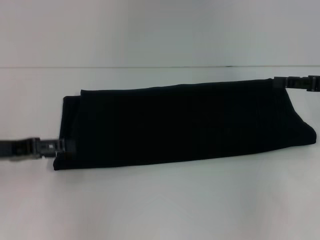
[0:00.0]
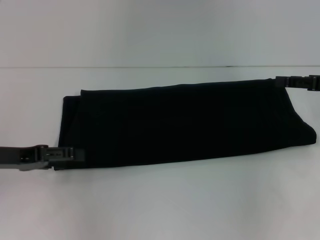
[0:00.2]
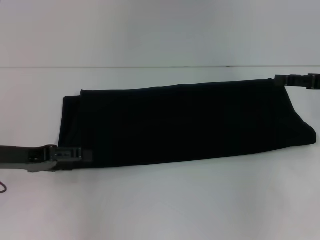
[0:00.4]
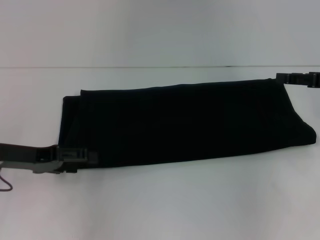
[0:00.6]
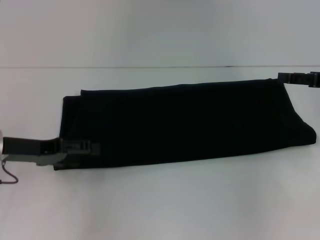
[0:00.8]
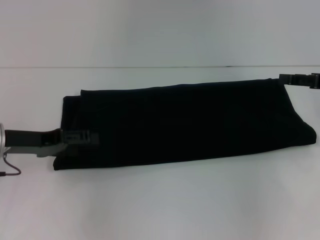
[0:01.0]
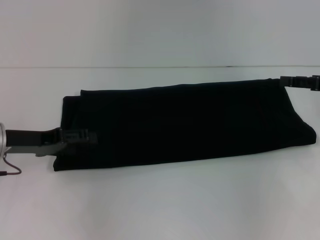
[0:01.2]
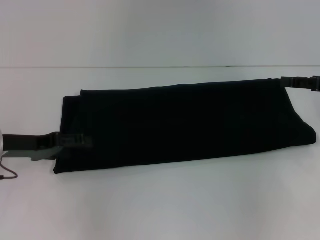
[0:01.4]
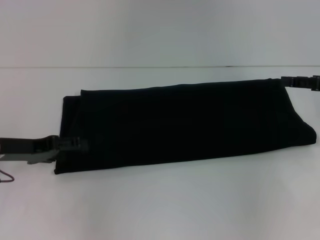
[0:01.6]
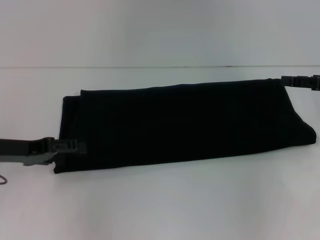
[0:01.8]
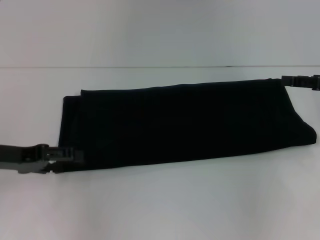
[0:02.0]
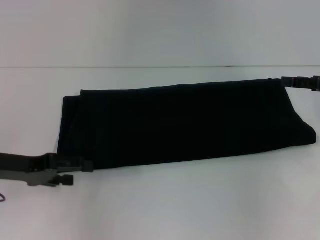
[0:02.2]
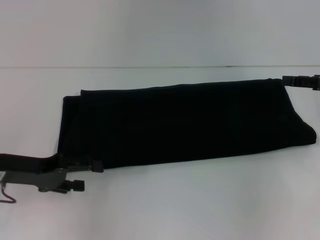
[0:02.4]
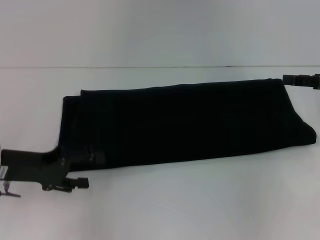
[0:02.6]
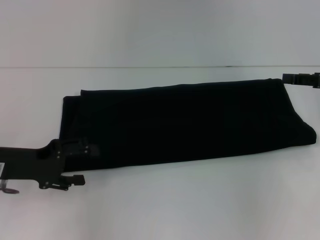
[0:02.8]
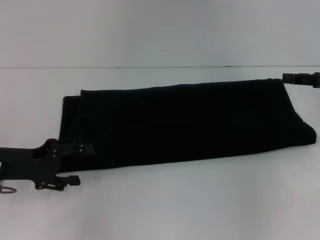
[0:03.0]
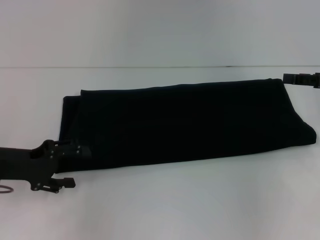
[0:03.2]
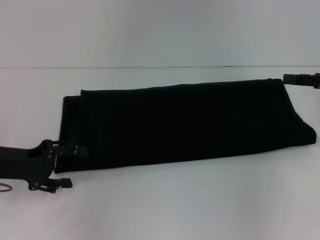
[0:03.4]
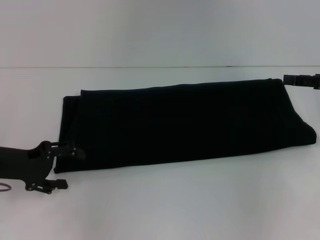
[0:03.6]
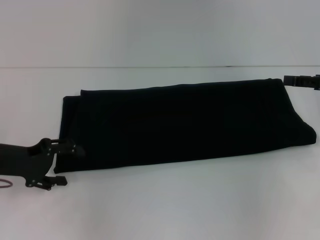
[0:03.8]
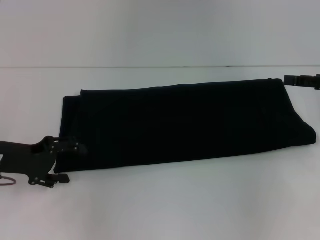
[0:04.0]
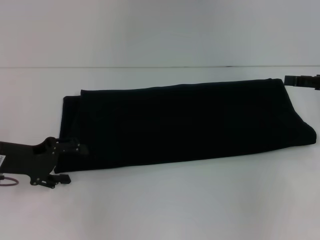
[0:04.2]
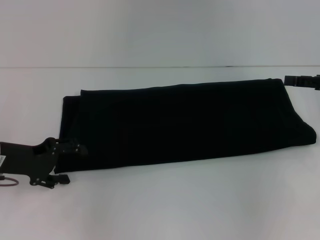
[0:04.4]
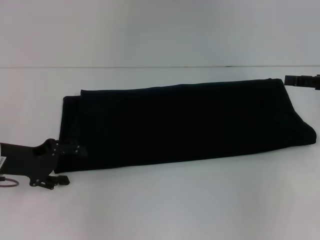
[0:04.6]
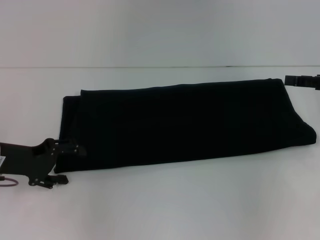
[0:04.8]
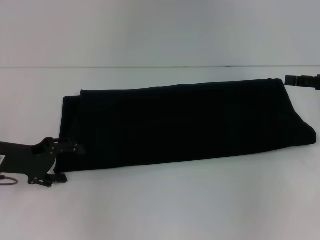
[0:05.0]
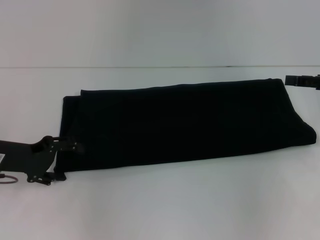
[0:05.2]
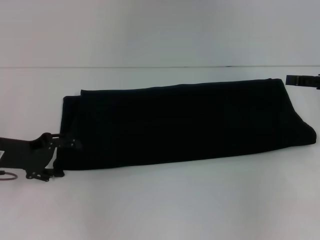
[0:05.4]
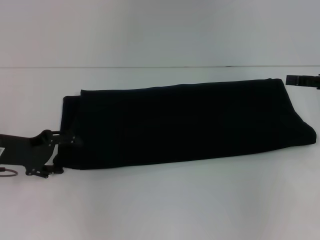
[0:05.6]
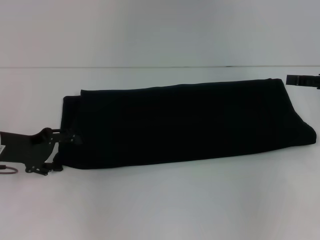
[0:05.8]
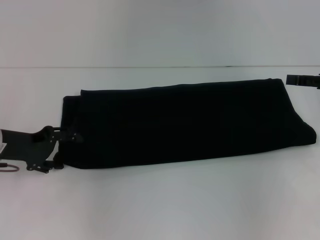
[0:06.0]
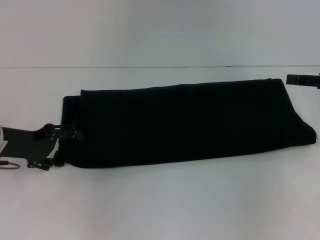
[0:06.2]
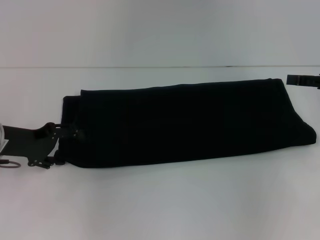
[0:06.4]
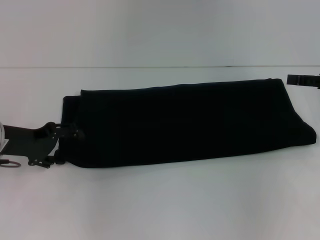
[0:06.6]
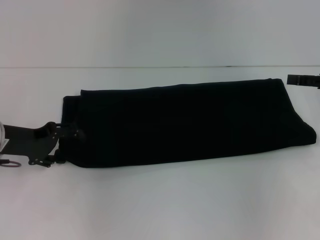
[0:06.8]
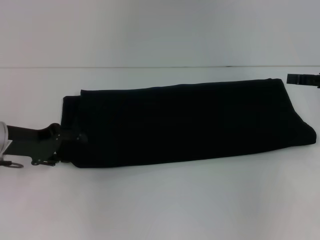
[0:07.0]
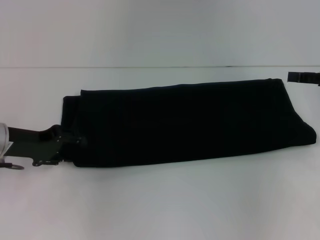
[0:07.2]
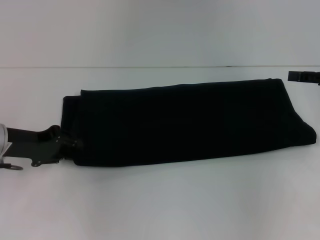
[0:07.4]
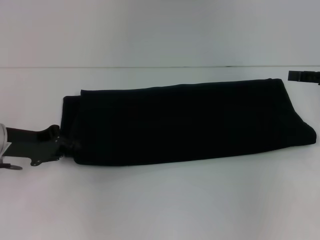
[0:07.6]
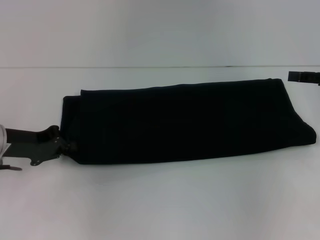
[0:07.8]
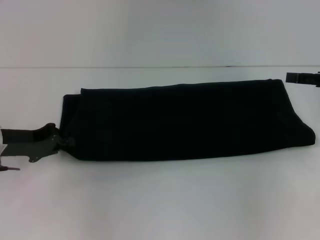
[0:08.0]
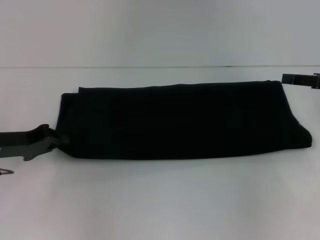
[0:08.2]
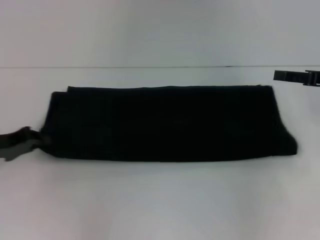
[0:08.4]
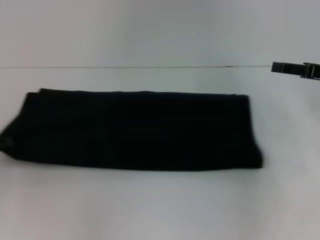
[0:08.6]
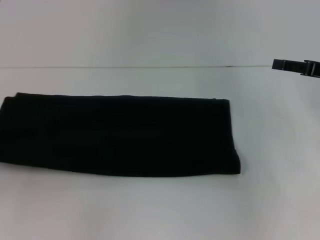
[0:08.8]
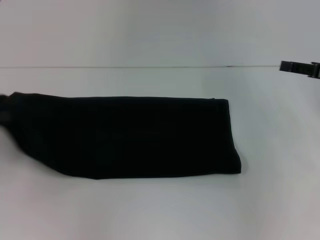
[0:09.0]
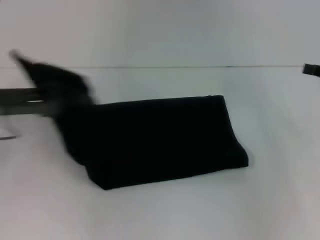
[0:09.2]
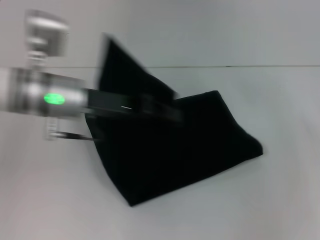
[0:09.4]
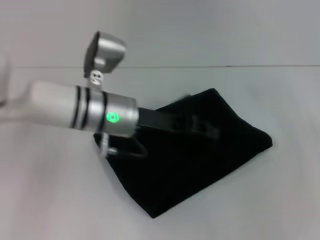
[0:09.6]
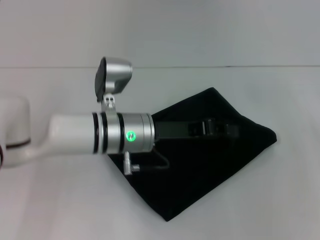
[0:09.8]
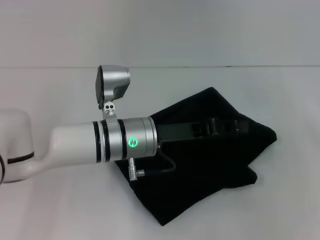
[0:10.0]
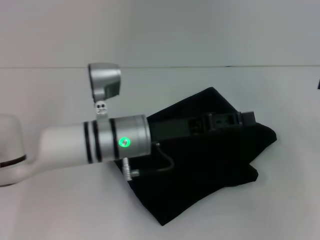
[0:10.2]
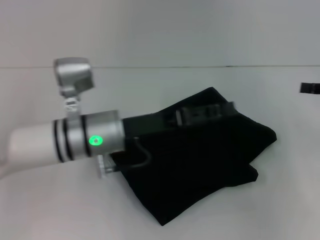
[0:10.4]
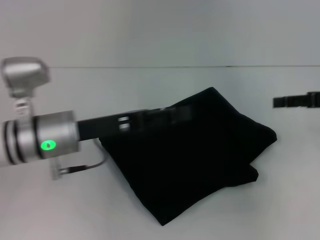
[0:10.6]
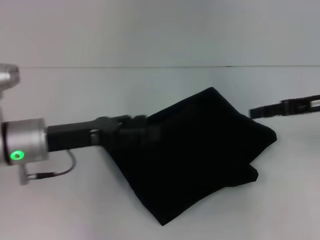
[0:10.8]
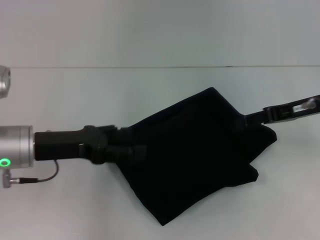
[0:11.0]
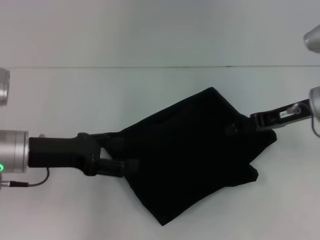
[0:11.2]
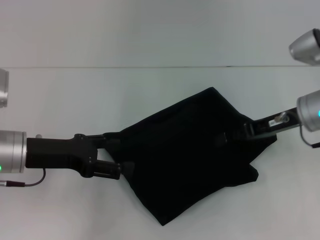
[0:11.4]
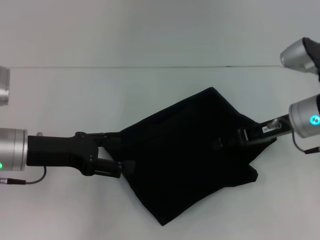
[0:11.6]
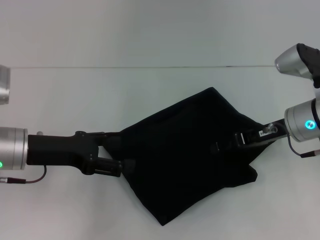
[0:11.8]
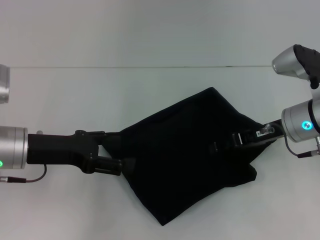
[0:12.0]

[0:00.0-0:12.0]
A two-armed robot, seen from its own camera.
Step, 0:00.0 to 0:09.8: Fold the clothes with your left hand.
0:00.0 to 0:01.6: The grippers move only a little.
0:03.0 to 0:06.0: The grippers stay close to where they were, moving slightly.
0:06.0 to 0:07.6: The left gripper closes its fingers.
0:07.6 to 0:09.0: The left gripper shifts approximately 10 cm to the left and backward, and closes up.
0:09.0 to 0:10.4: The left gripper goes roughly 25 cm to the right, and opens its fingers.
0:10.4 to 0:12.0: Both grippers travel together to the left, about 15 cm. The left gripper opens up.

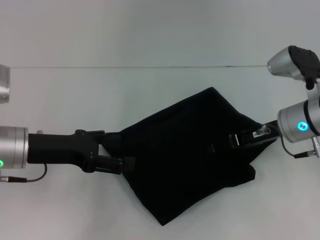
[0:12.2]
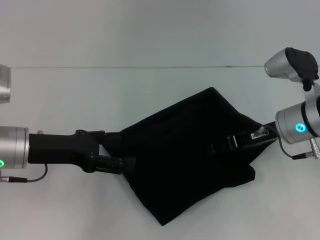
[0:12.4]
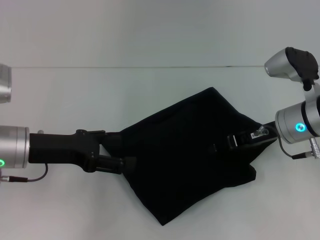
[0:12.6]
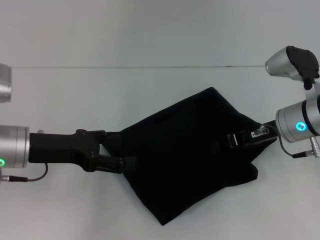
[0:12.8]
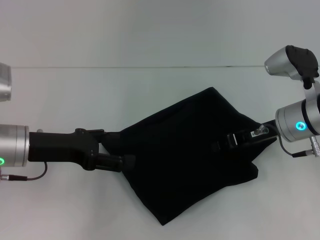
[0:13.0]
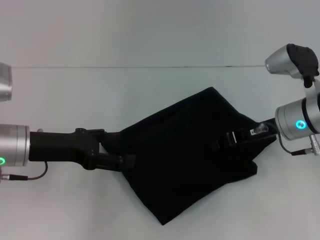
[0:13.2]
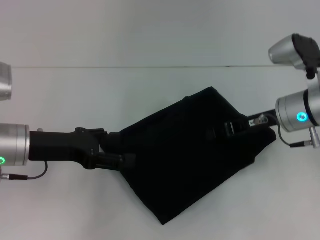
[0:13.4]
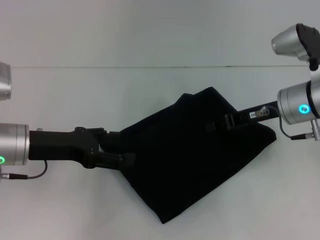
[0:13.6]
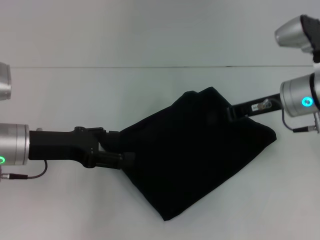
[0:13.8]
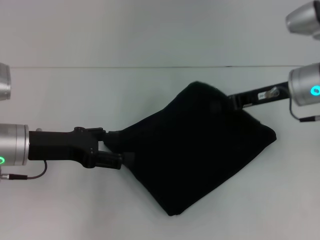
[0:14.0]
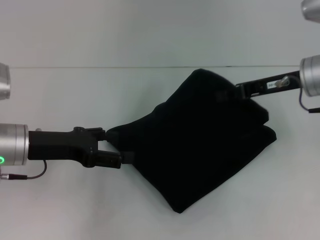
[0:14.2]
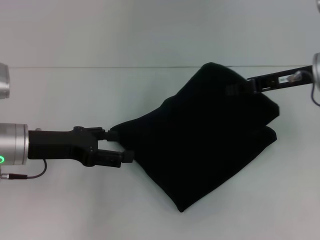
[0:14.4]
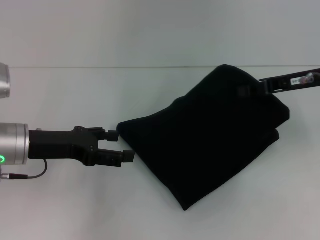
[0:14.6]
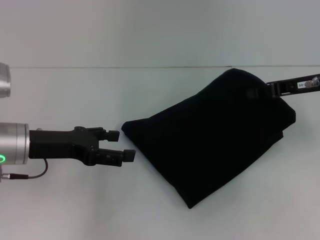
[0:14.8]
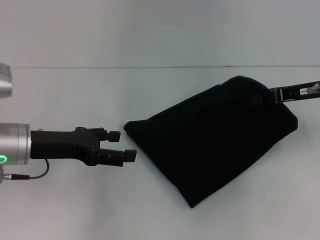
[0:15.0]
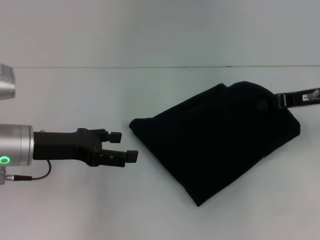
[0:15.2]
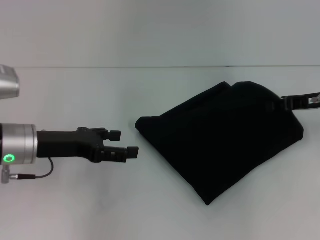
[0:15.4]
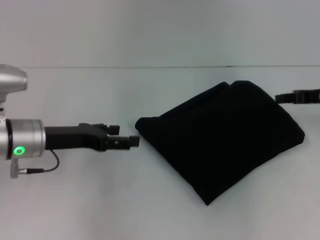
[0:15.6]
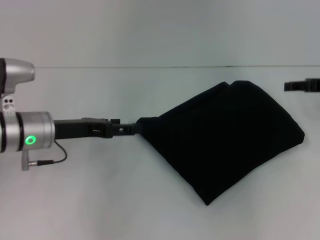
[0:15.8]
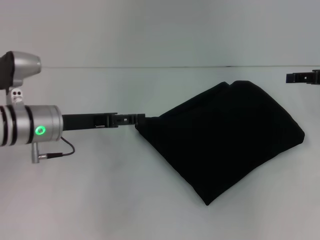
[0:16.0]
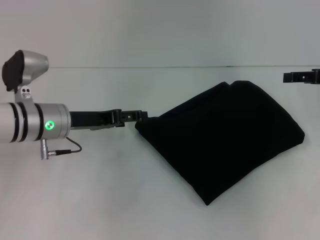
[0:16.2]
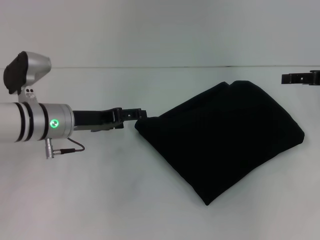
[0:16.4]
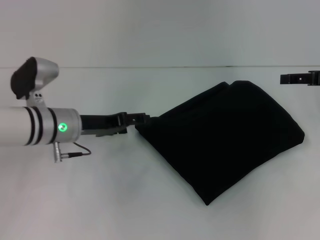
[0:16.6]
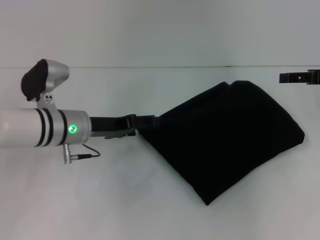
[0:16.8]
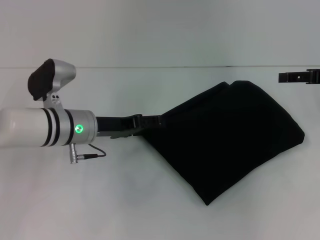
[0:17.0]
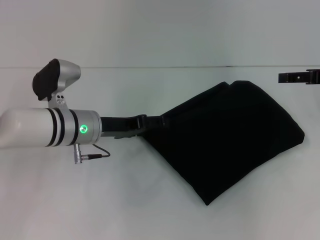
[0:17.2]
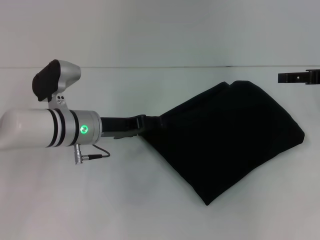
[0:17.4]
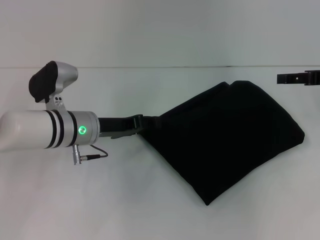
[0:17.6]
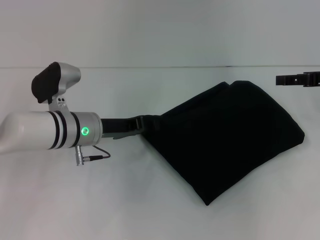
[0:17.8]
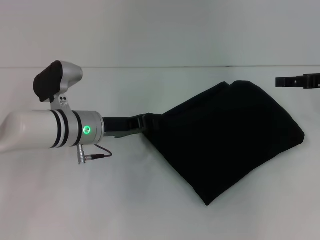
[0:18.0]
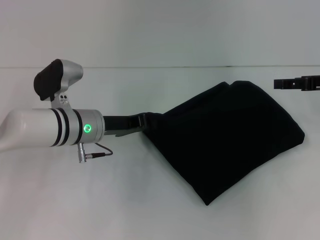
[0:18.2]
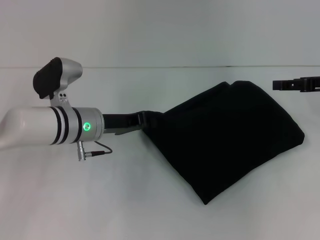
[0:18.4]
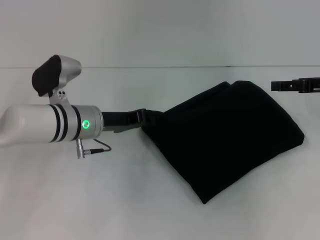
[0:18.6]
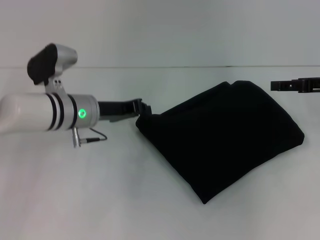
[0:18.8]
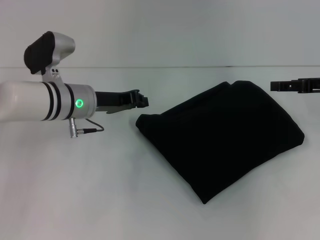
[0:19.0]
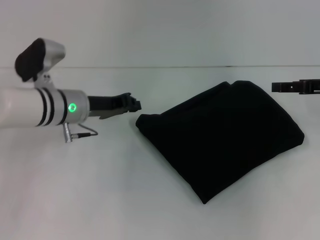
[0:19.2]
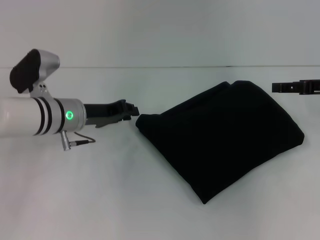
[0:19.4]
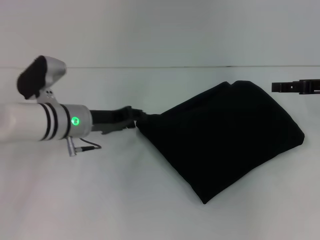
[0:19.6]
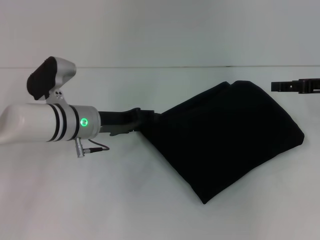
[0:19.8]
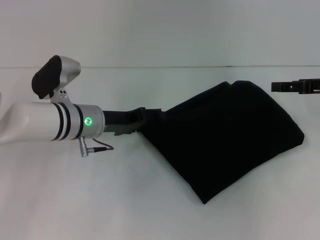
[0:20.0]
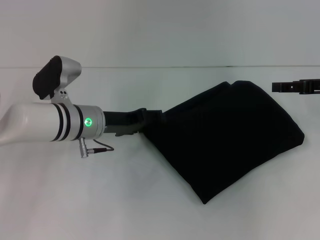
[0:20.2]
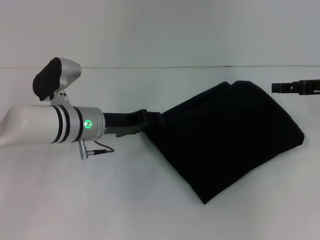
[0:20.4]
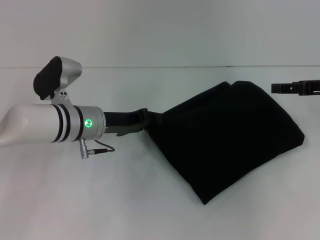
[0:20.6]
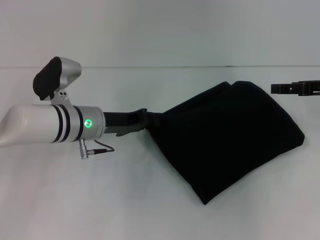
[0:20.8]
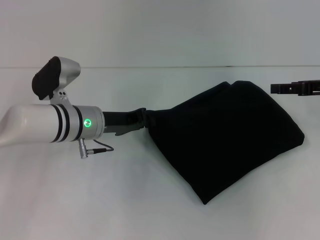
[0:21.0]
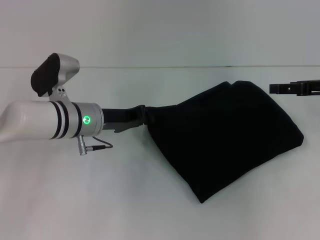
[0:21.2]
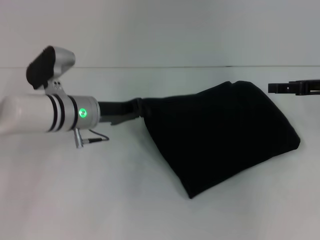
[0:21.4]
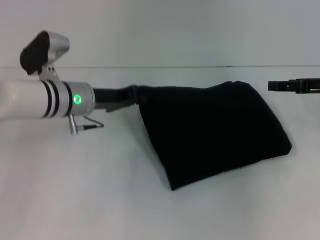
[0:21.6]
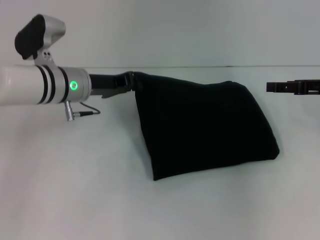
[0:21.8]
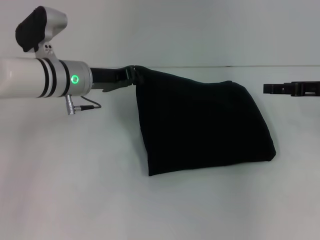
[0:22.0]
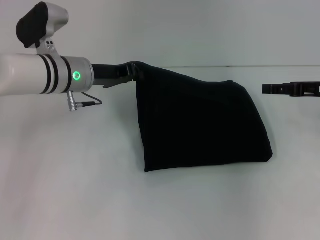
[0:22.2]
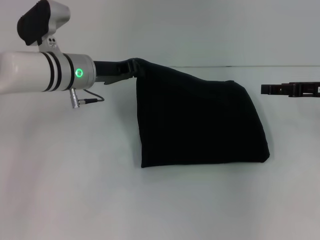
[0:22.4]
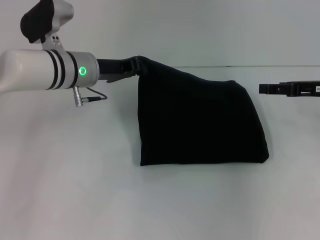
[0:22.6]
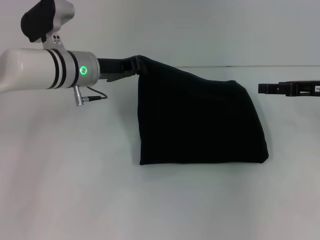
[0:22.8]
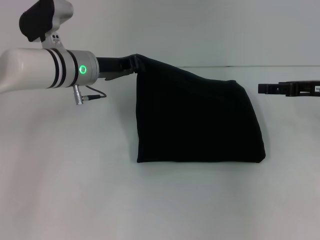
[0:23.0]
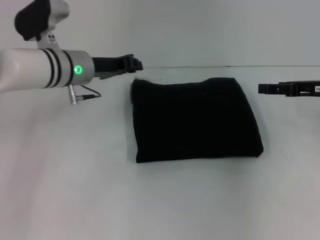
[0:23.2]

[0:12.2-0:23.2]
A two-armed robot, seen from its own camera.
0:12.2 to 0:13.8: The right gripper closes up.
0:13.8 to 0:15.4: The right gripper moves to the right, roughly 10 cm.
0:15.4 to 0:17.0: The right gripper opens. Meanwhile the left gripper shifts some 10 cm to the right and forward.
0:17.0 to 0:18.4: The left gripper closes.
0:18.4 to 0:20.0: The left gripper opens up.
0:20.0 to 0:21.6: The left gripper closes up.
0:21.6 to 0:23.2: There are only small adjustments of the grippers.
